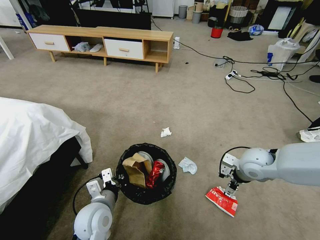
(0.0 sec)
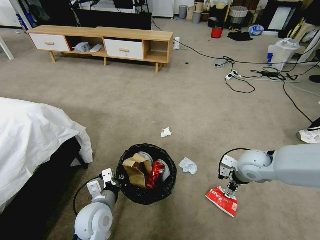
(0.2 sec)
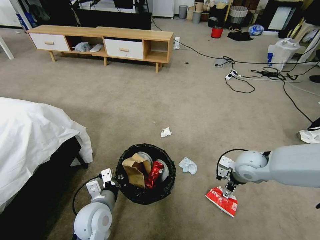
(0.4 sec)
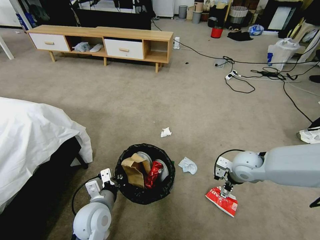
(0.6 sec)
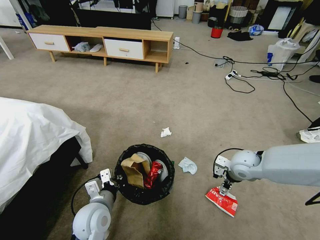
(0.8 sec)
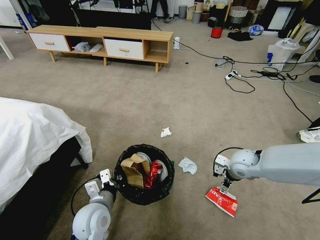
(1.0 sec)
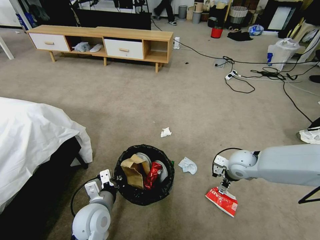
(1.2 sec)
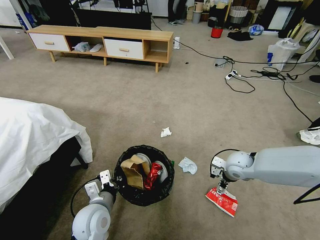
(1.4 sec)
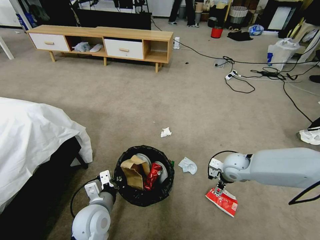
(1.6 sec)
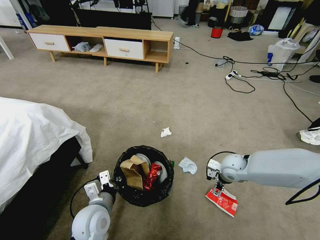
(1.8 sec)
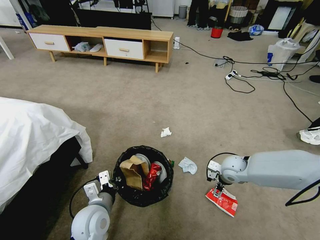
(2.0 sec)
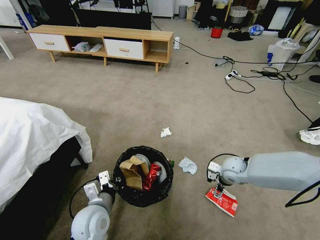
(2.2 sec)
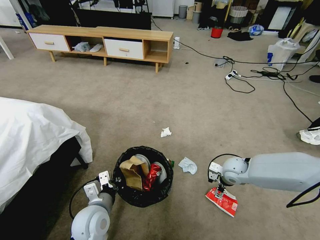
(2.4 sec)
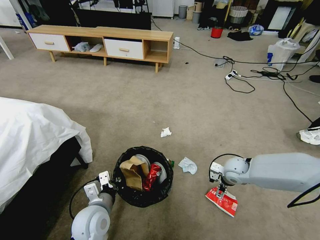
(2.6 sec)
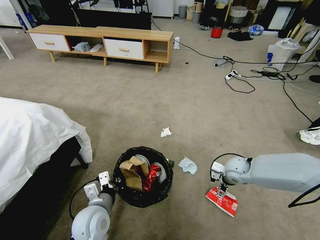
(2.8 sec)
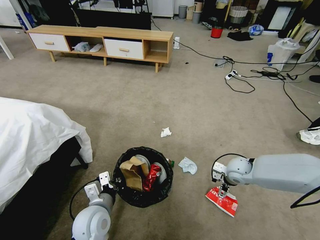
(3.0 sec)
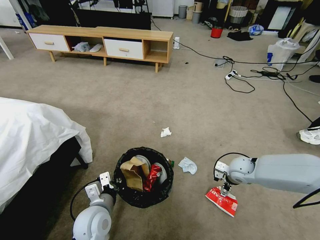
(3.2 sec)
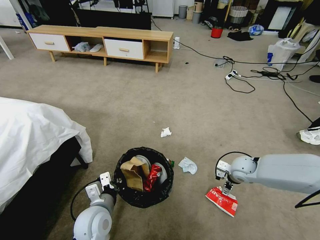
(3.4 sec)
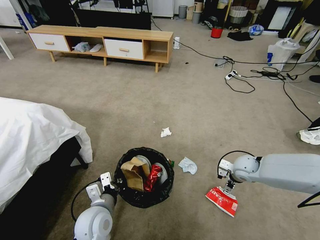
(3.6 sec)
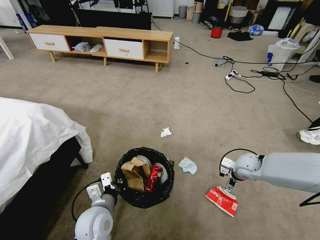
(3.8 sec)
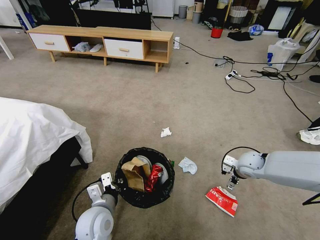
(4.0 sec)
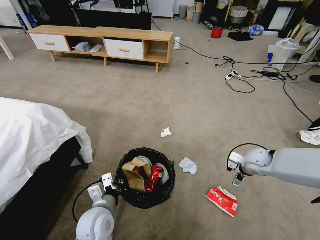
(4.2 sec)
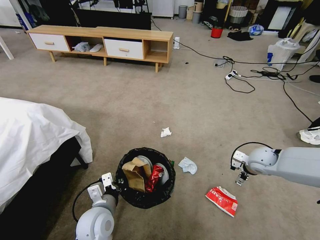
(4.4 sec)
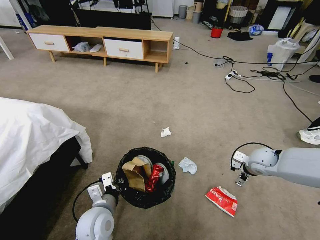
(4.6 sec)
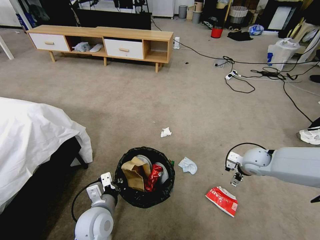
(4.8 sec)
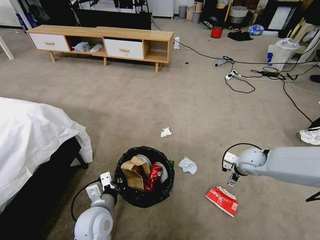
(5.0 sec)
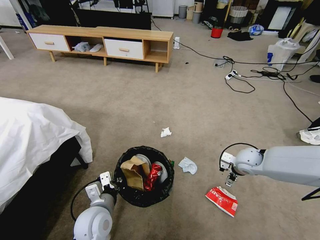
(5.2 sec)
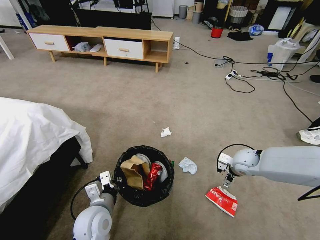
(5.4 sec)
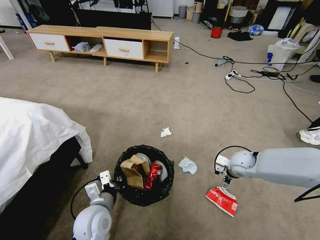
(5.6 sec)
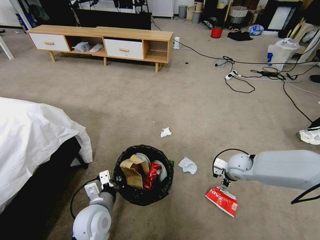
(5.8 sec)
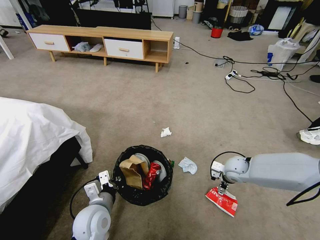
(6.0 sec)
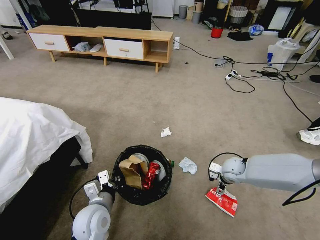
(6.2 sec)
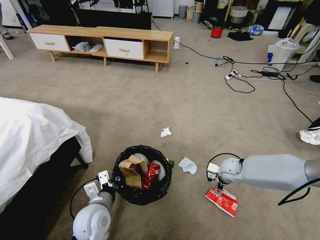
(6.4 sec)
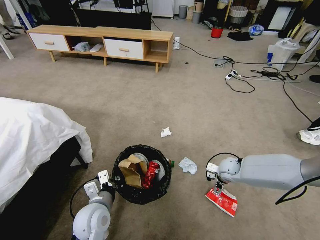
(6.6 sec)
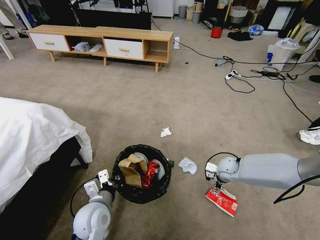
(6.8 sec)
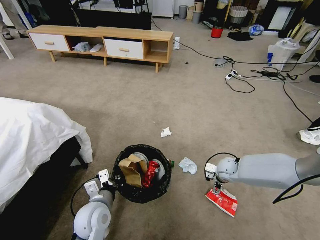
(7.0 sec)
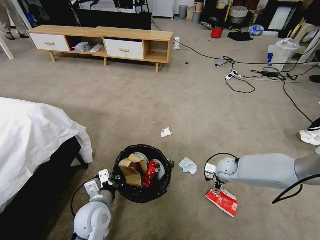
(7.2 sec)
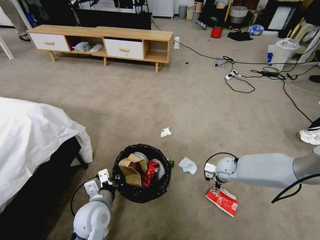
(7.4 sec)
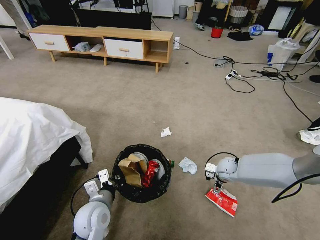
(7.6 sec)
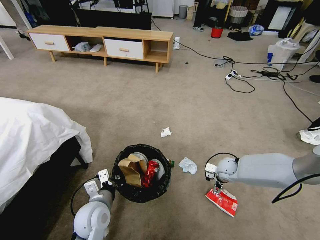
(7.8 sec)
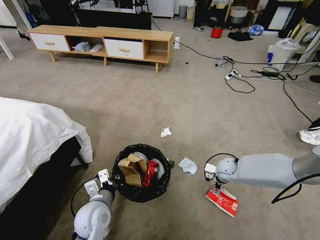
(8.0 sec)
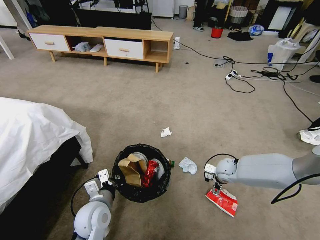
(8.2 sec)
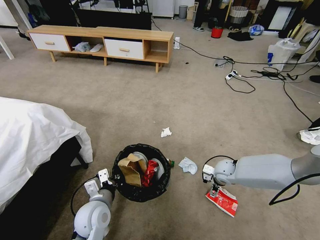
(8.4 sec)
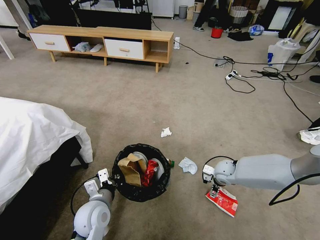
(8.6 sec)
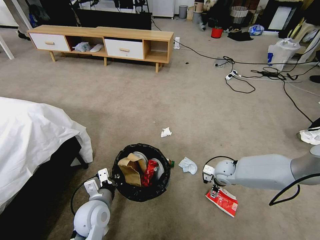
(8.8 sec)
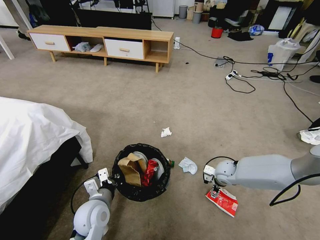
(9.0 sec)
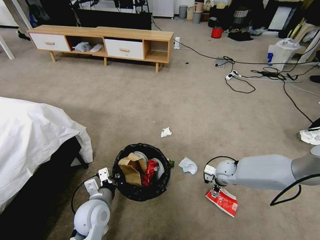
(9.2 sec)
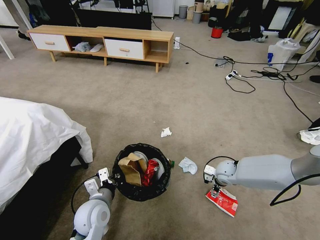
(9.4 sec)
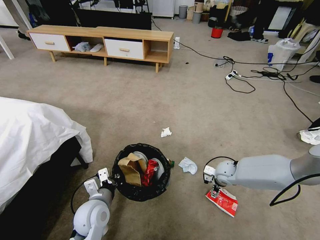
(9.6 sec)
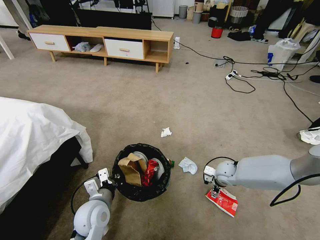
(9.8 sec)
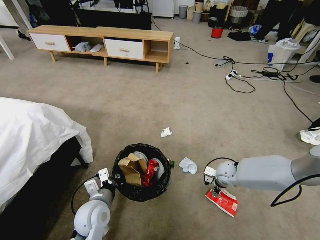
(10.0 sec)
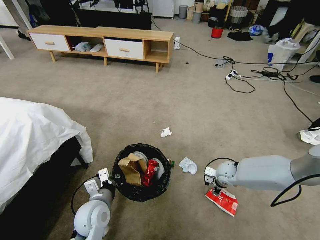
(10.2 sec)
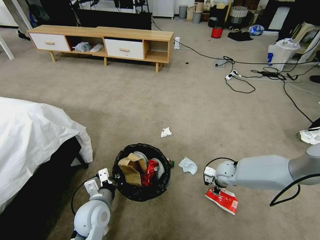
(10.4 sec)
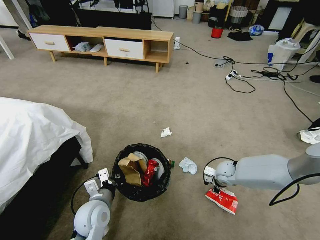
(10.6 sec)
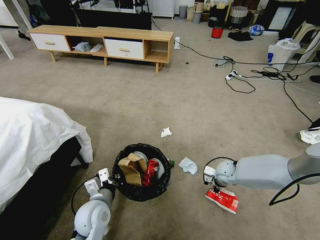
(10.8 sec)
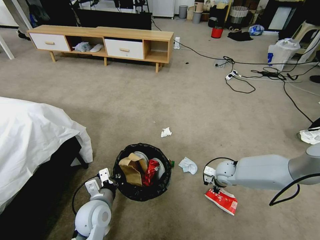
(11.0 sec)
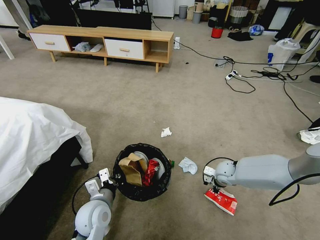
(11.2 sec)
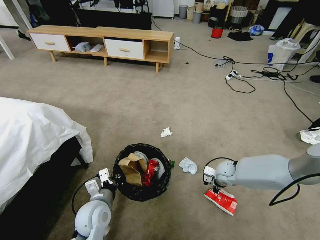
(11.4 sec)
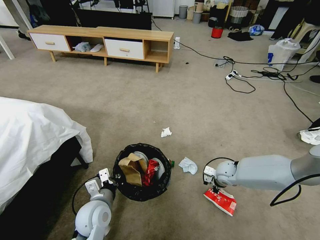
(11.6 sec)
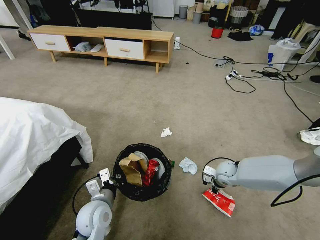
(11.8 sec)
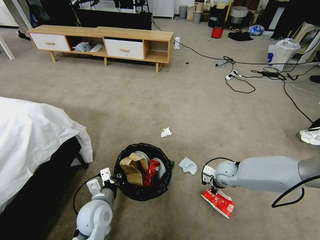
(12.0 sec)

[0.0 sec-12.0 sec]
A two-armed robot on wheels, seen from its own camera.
Task of the whole recording: Pick up the trash bin, then pick up the garbage from the floor and place it into the trash bin.
0.0 sec to 1.6 sec: The right gripper is displaced downward by approximately 10 cm.
1.6 sec to 3.0 sec: There are only small adjustments of the grippers.
3.0 sec to 4.4 sec: The right gripper is displaced to the right by about 5 cm.
4.4 sec to 6.0 sec: The right gripper is displaced to the left and downward by some 10 cm.
6.0 sec to 9.0 sec: The grippers move only a little.
9.0 sec to 10.4 sec: The right gripper closes.
10.4 sec to 12.0 sec: The right gripper closes.

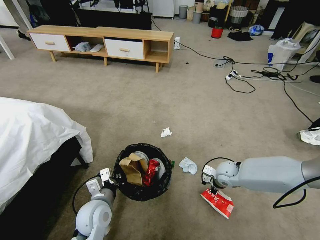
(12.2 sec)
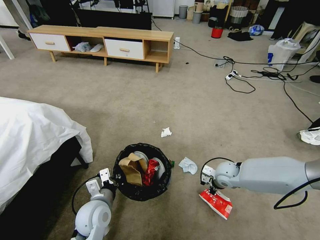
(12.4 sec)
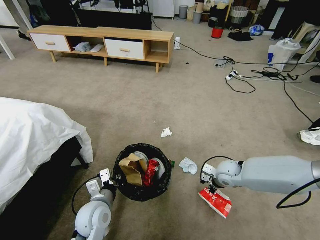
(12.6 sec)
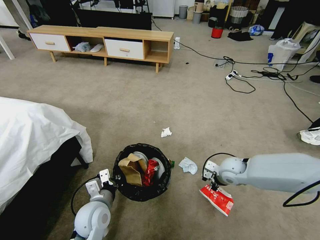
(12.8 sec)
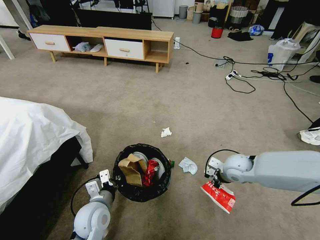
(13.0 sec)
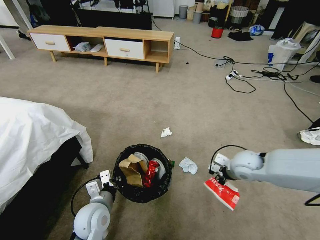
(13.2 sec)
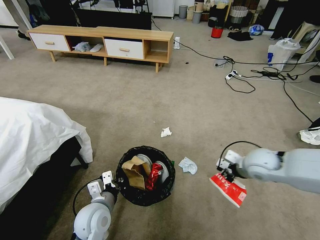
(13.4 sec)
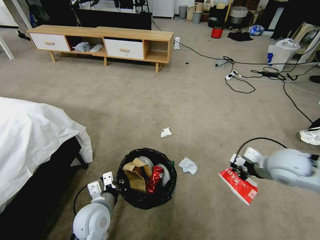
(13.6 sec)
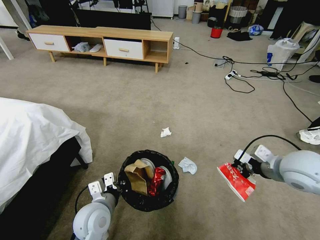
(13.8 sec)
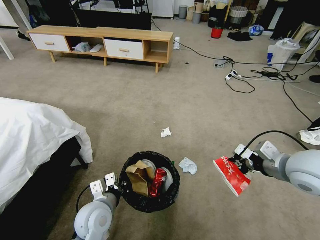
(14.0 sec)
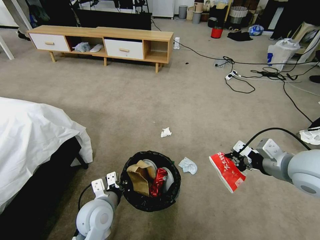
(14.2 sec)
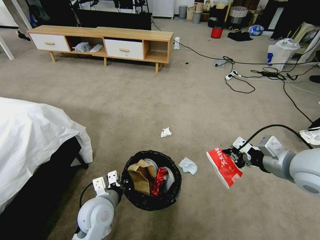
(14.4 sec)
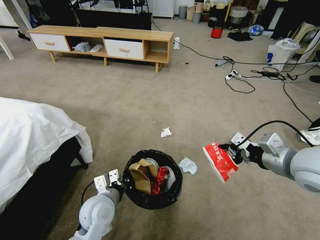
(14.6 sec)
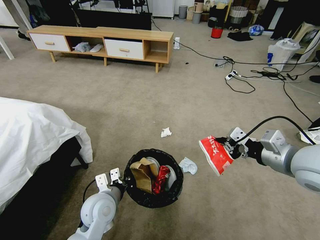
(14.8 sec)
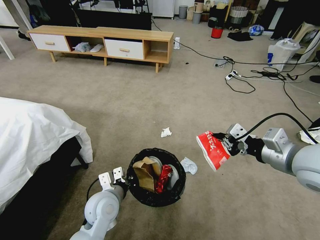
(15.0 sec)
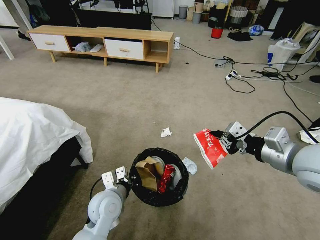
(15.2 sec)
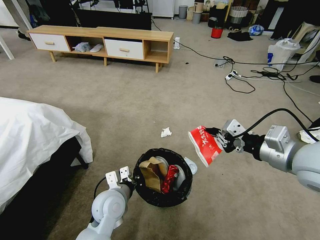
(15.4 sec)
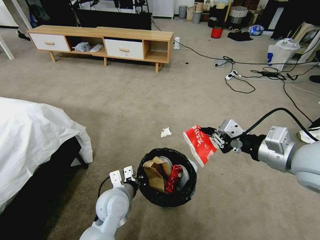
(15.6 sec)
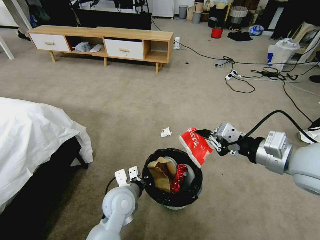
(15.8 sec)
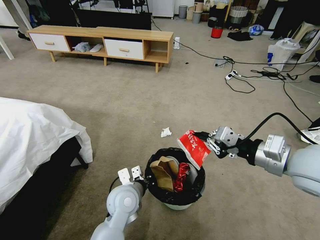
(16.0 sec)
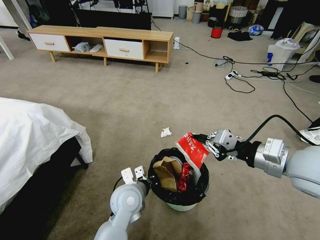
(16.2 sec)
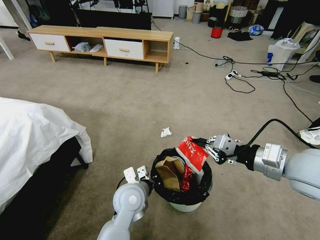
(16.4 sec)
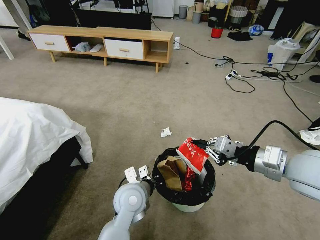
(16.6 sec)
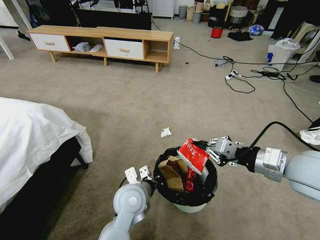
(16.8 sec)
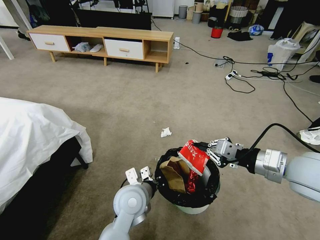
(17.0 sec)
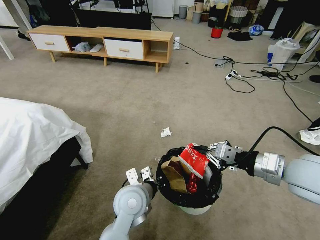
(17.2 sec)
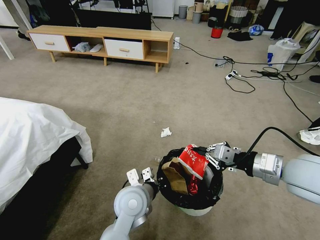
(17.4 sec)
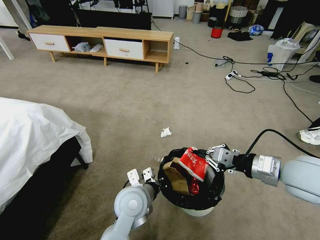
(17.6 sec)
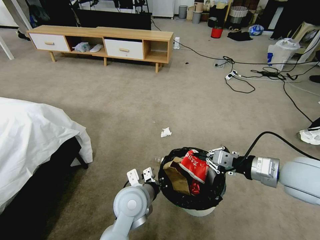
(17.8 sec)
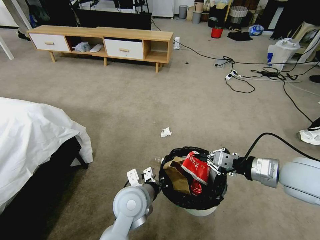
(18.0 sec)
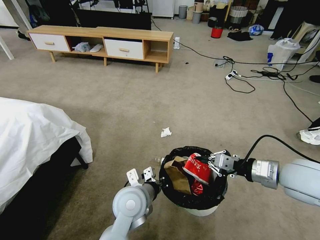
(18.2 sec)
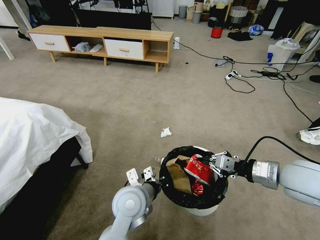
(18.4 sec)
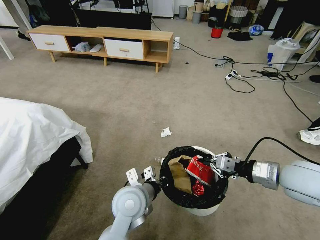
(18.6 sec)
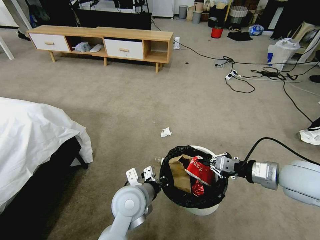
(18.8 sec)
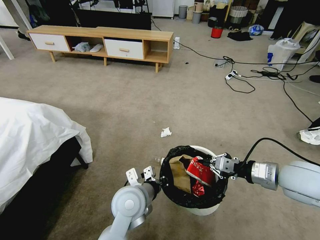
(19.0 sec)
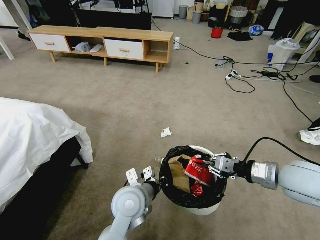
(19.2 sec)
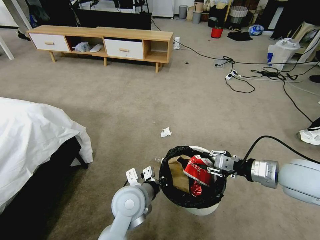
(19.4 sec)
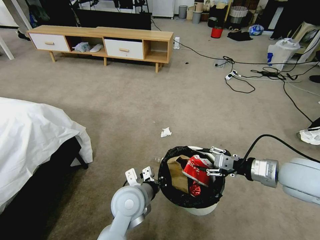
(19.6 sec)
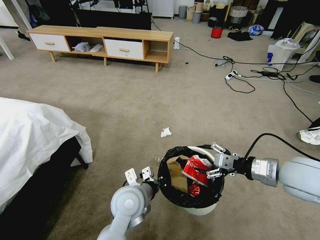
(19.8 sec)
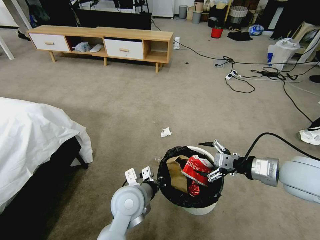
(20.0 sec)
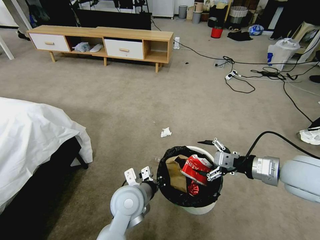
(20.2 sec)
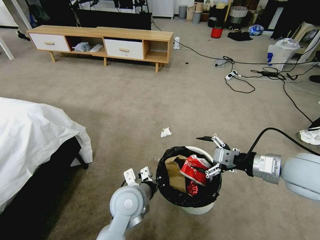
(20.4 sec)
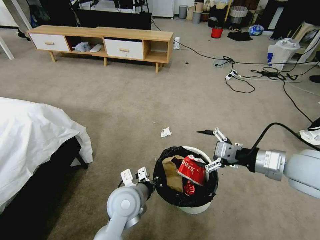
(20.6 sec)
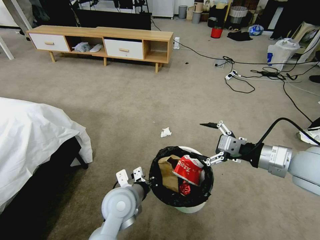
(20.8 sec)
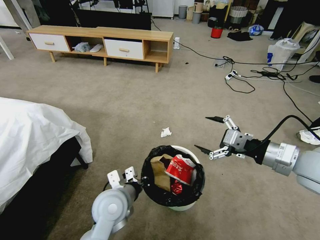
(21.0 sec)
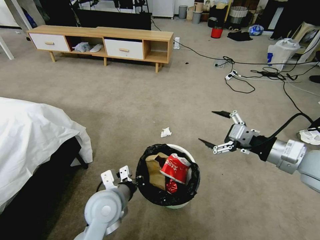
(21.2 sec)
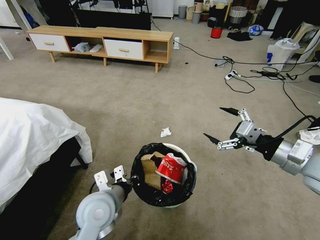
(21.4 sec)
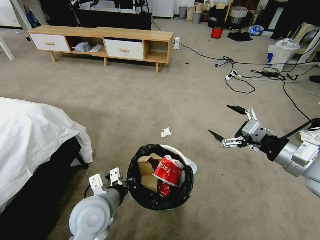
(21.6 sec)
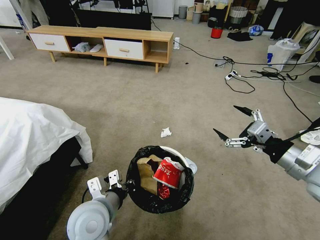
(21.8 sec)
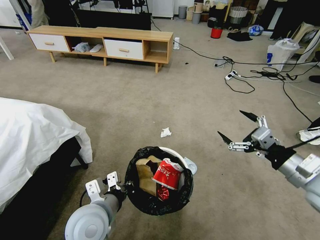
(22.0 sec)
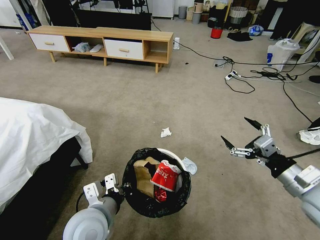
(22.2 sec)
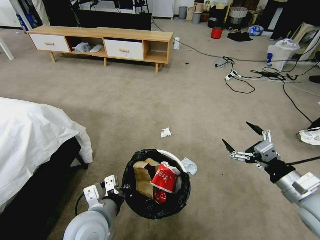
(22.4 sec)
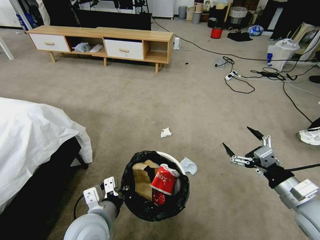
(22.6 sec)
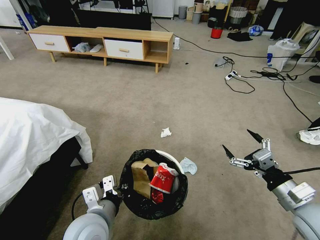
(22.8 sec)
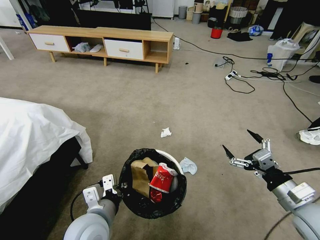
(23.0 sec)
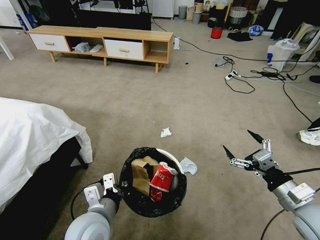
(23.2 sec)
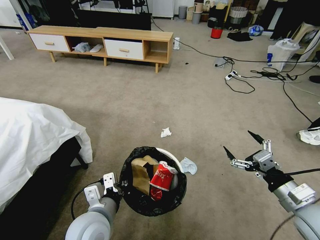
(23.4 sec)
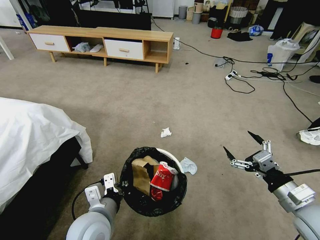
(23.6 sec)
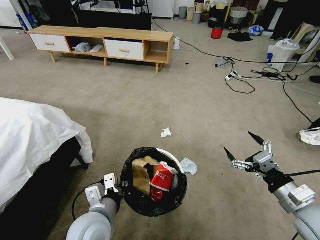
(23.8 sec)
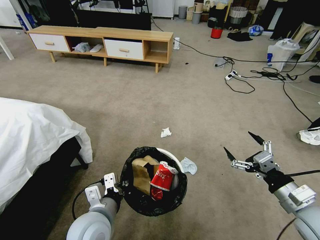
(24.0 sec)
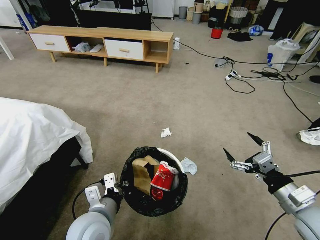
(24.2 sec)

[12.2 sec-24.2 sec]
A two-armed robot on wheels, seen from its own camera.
Task of the whole recording: Pick up the trash bin, then pick up the garbage from the floor and place it into the trash bin.
12.2 sec to 13.8 sec: The left gripper closes its fingers; the right gripper travels upward and backward by some 25 cm.
13.8 sec to 15.2 sec: The right gripper travels upward by approximately 10 cm.
15.2 sec to 16.6 sec: The left gripper shifts some 10 cm to the right.
16.6 sec to 18.2 sec: The right gripper shifts approximately 5 cm downward.
18.2 sec to 19.8 sec: The right gripper opens.
19.8 sec to 21.2 sec: The right gripper goes approximately 5 cm upward. The left gripper heads to the left, covering about 5 cm.
21.2 sec to 22.6 sec: The left gripper goes some 5 cm backward; the right gripper moves downward and backward, about 15 cm.
22.6 sec to 24.2 sec: There are only small adjustments of the grippers.
